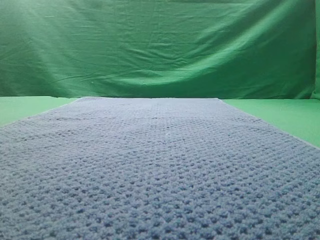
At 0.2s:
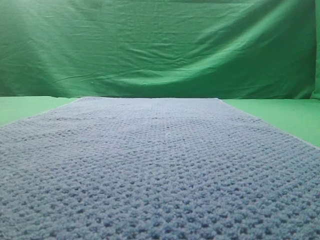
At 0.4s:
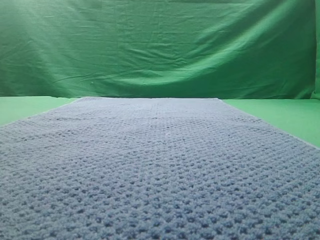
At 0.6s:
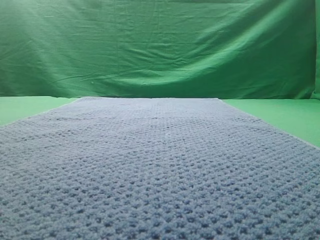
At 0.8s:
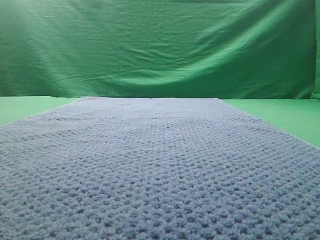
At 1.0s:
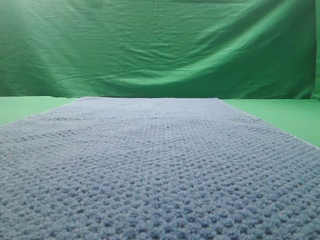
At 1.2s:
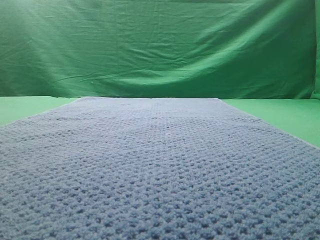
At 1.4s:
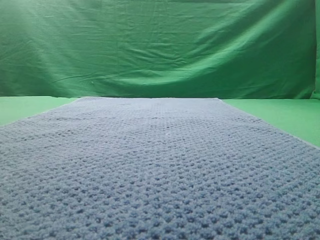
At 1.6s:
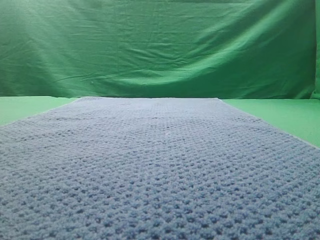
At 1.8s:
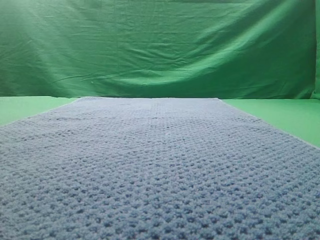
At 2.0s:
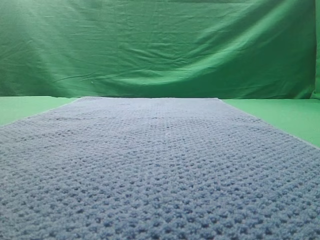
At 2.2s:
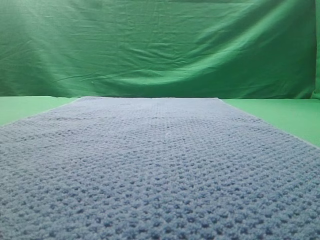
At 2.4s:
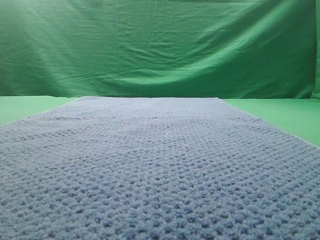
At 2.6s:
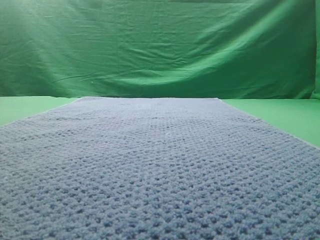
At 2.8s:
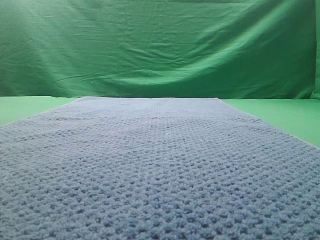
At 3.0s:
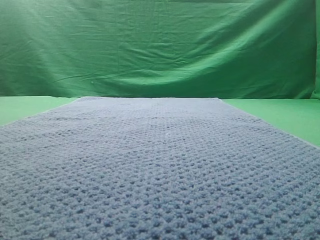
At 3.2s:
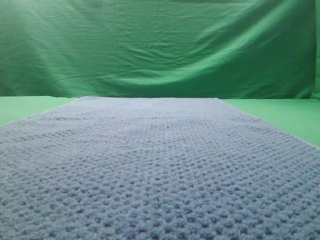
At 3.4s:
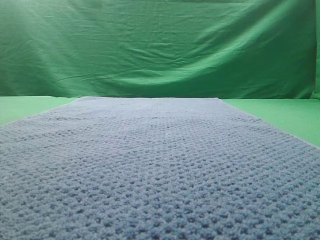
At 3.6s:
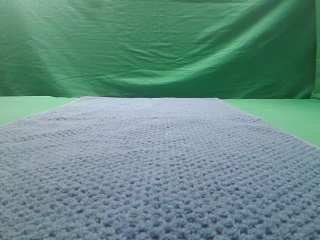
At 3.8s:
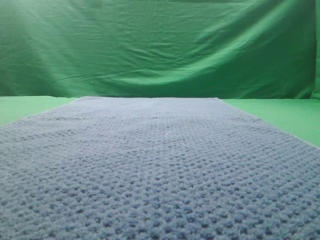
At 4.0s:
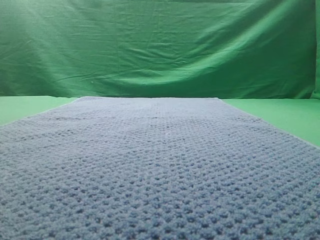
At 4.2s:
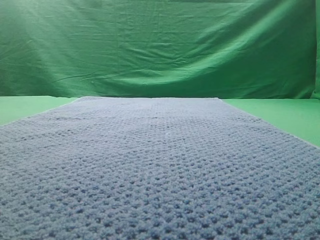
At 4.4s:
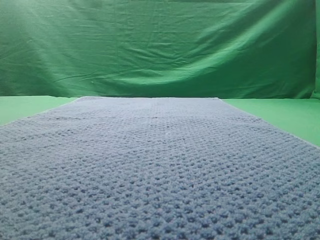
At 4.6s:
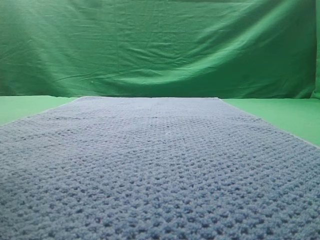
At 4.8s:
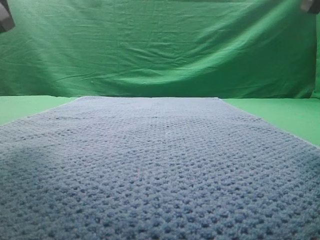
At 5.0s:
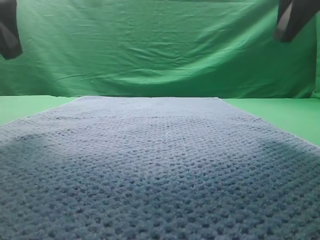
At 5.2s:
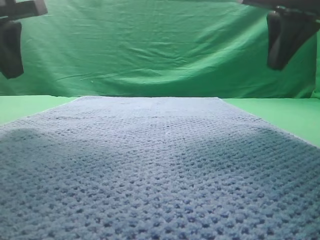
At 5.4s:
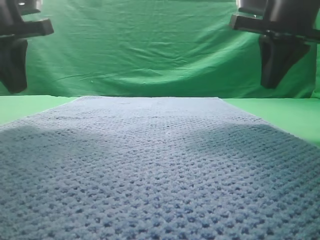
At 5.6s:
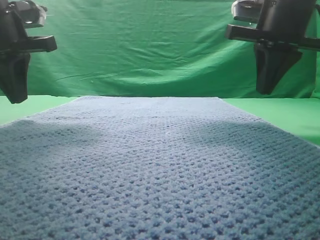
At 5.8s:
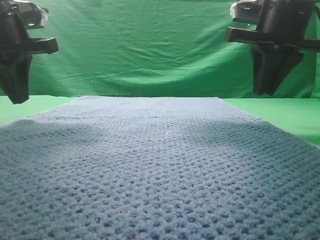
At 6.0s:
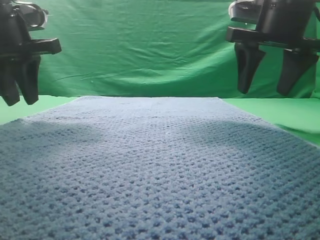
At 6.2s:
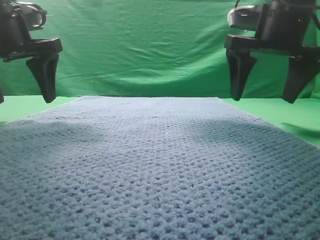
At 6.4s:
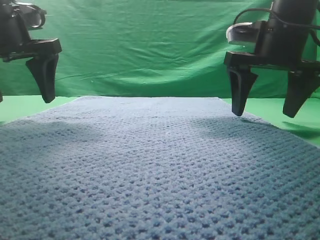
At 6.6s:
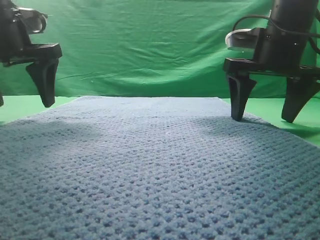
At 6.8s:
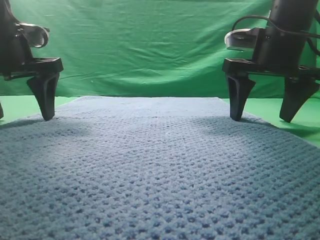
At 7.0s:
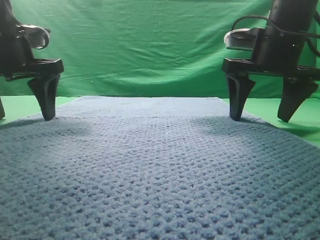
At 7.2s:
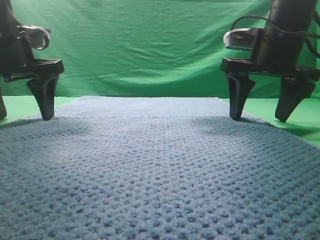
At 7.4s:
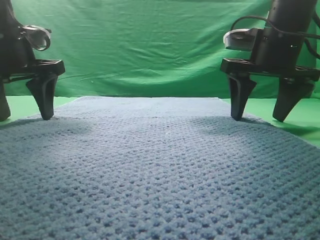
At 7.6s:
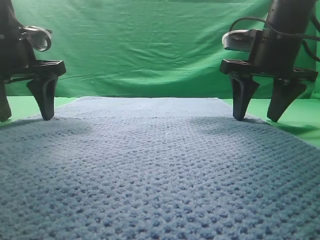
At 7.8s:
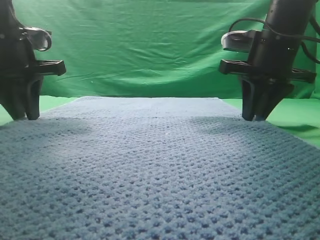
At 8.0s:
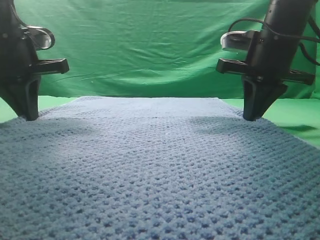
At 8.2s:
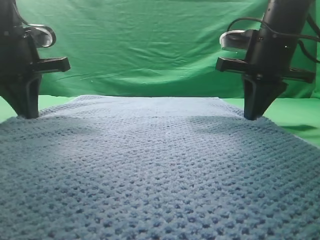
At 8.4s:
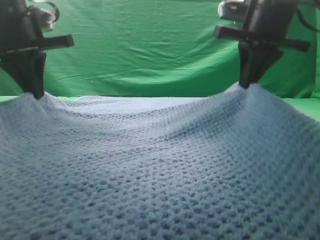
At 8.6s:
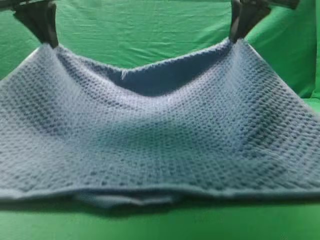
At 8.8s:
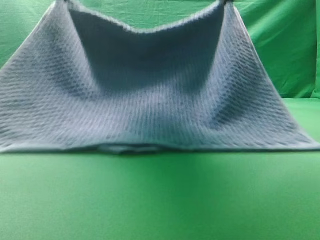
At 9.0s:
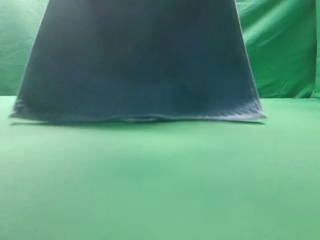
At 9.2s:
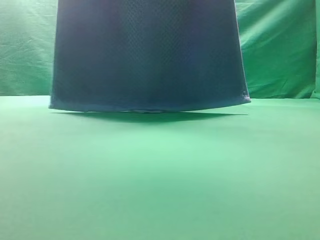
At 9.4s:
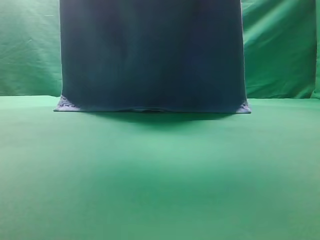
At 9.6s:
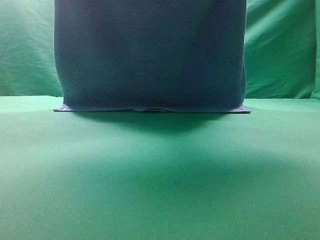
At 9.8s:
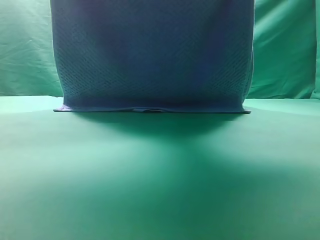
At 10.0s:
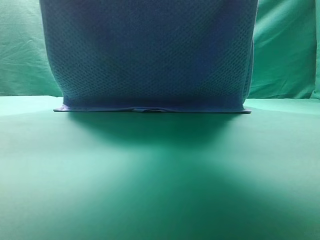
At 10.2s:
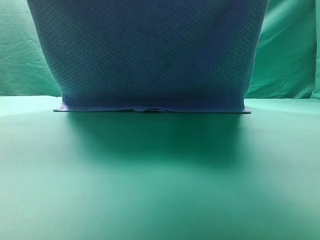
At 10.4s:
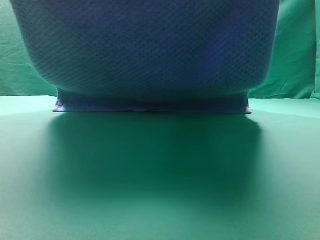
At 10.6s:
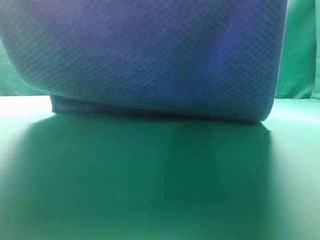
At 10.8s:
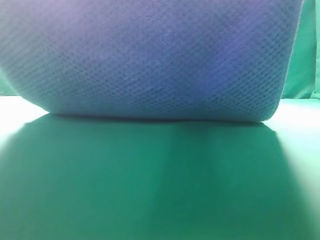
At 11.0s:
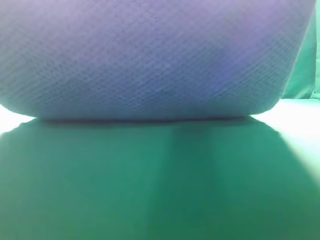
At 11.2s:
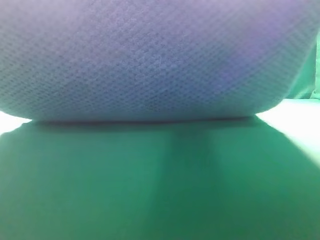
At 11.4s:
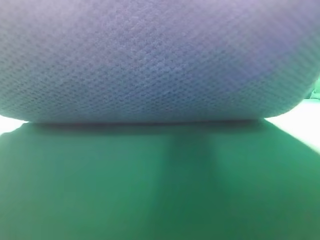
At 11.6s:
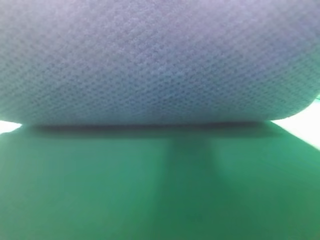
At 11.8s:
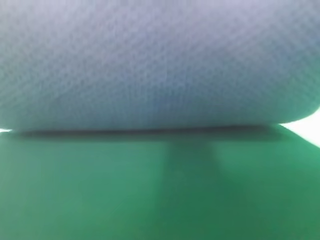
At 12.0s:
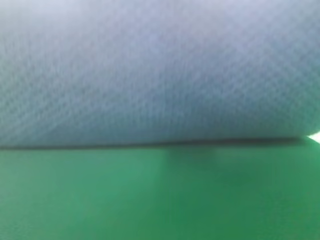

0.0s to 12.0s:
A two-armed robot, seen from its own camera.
Task of the whole recording: fold the towel on the table twice.
Step, 0.0s to 9.2s: pick up the towel with two arm.

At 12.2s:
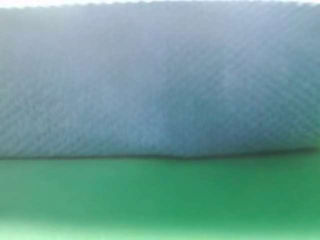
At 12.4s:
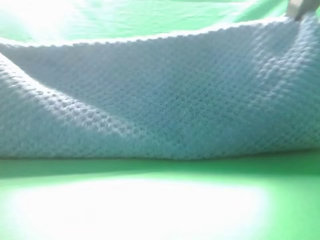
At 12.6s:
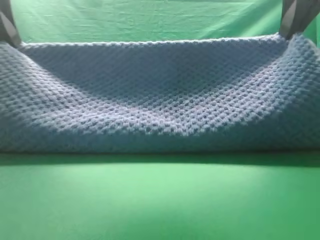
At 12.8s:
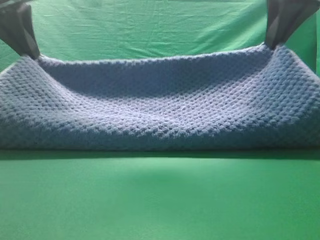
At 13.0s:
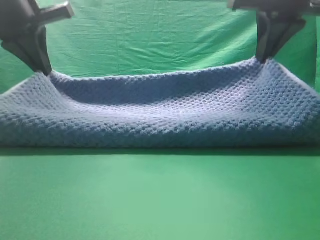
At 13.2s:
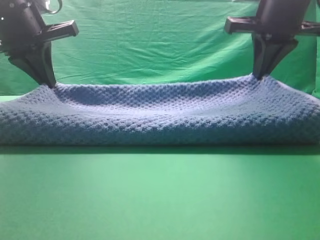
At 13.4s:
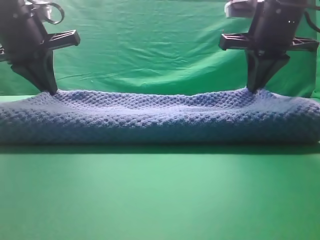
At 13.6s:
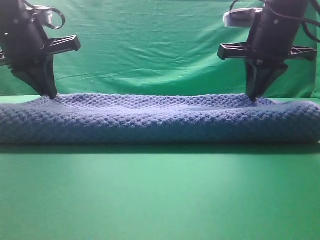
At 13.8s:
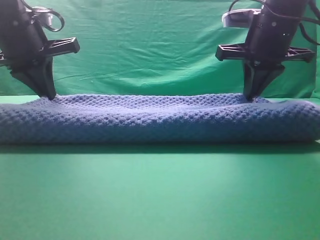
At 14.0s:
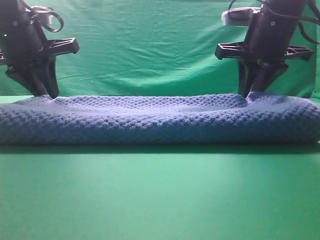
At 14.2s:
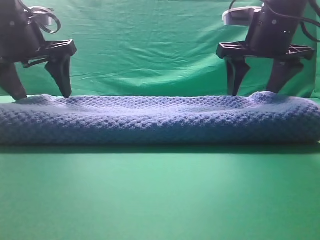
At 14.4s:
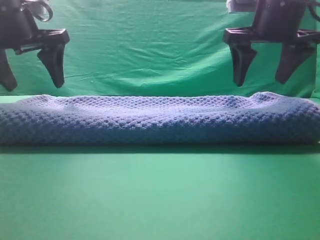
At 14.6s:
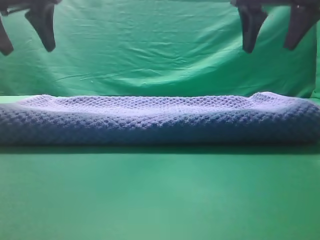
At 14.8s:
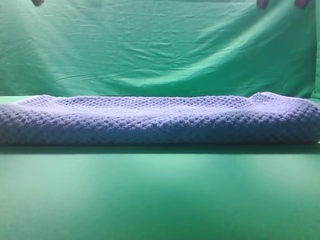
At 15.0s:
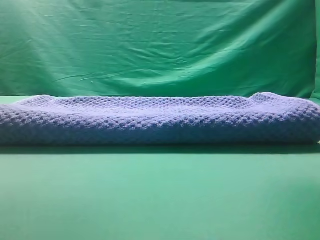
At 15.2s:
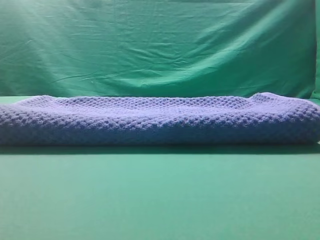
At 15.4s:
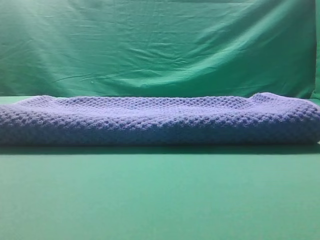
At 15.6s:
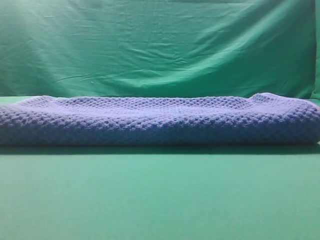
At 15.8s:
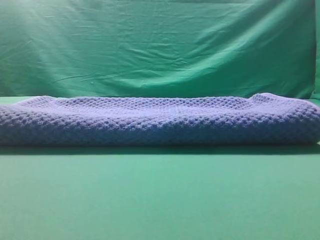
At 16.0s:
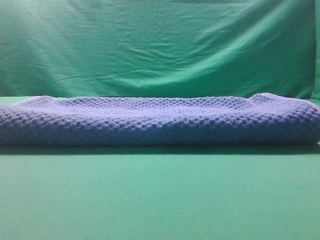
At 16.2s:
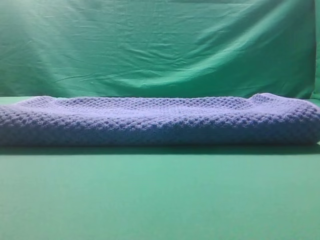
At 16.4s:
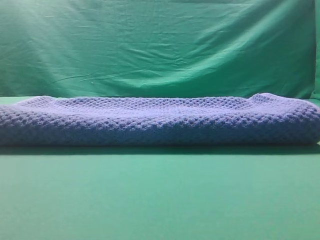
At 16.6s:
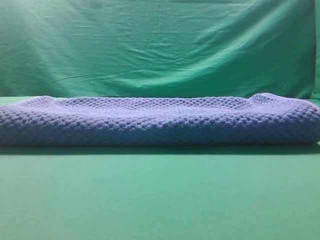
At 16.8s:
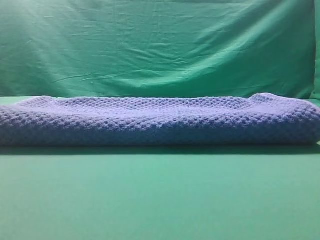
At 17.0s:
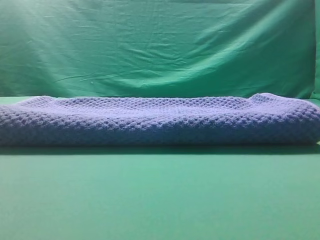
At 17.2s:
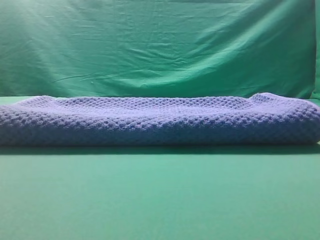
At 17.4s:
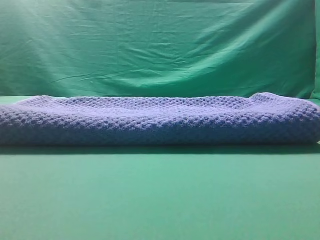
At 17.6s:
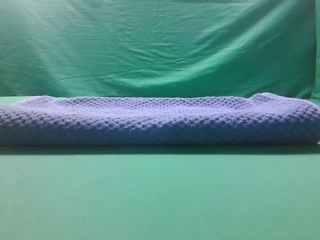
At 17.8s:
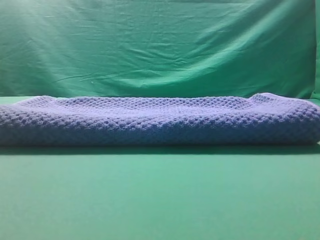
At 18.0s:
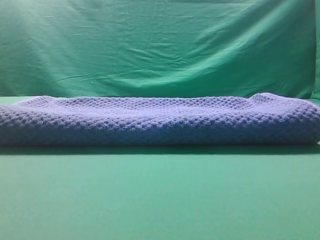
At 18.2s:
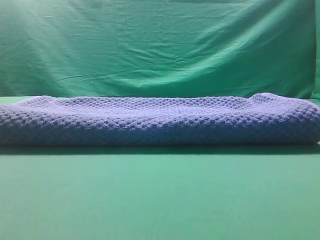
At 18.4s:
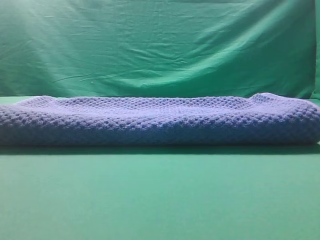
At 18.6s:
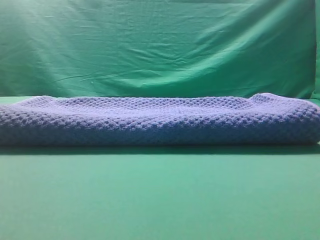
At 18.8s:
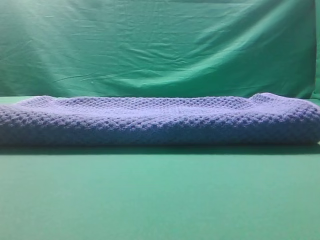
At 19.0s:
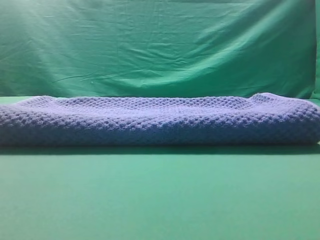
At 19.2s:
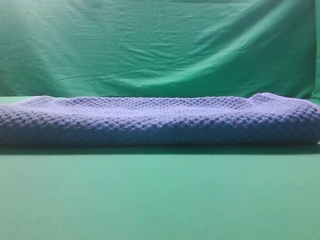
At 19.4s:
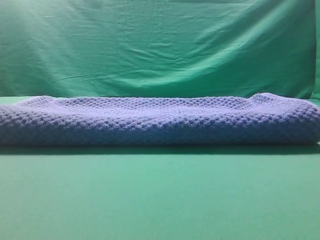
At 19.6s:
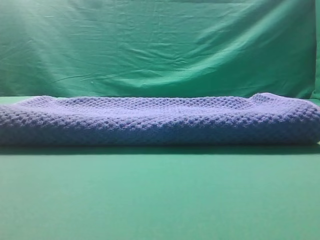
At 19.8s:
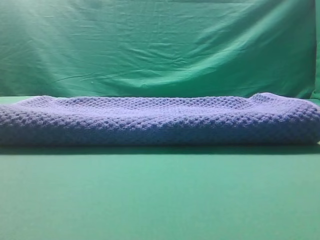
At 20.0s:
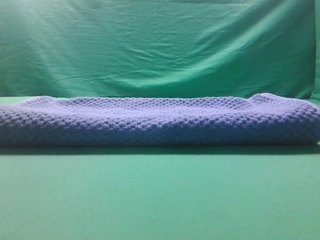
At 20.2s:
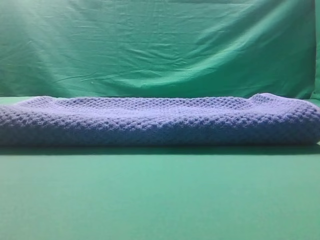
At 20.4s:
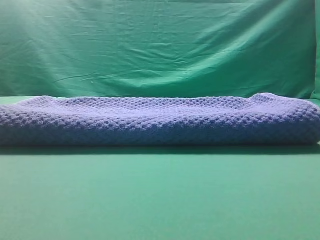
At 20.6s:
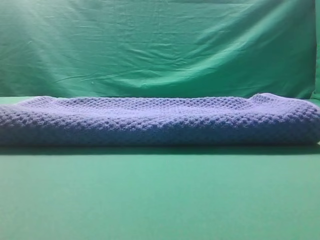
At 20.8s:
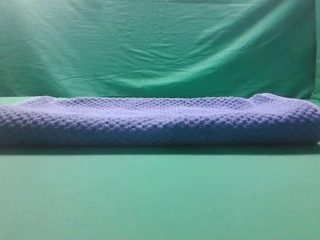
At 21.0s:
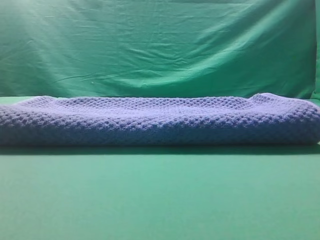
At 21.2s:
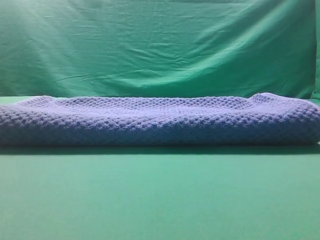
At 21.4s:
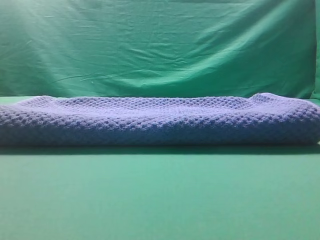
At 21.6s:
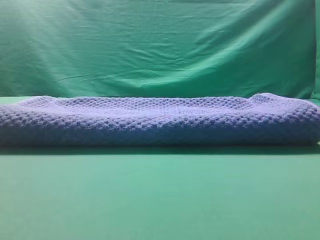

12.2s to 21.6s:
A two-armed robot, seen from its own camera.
Task of the whole recording: fold the towel on the table twice.
Step, 12.2s to 14.6s: Fold the towel twice on the table.

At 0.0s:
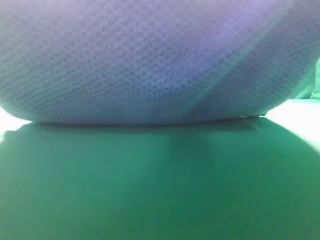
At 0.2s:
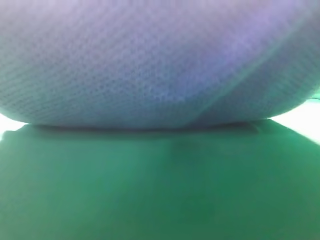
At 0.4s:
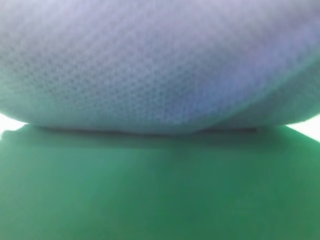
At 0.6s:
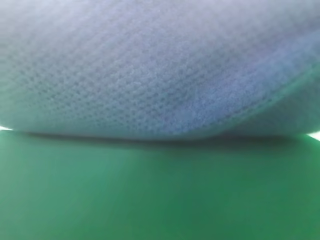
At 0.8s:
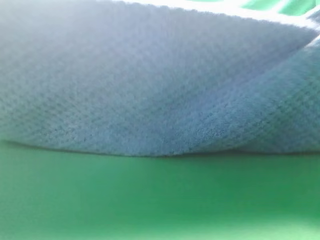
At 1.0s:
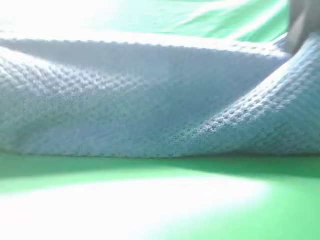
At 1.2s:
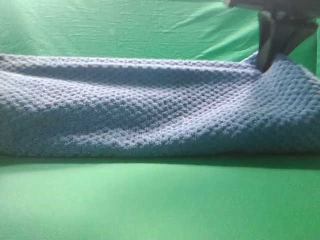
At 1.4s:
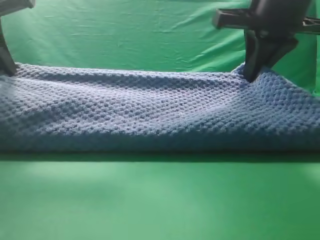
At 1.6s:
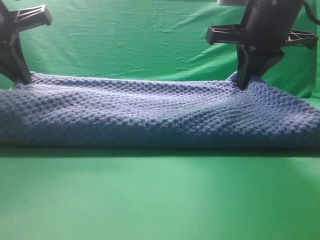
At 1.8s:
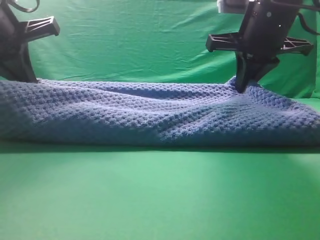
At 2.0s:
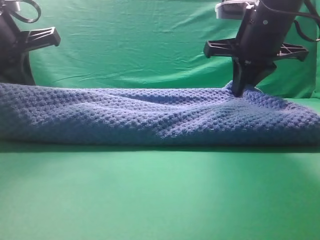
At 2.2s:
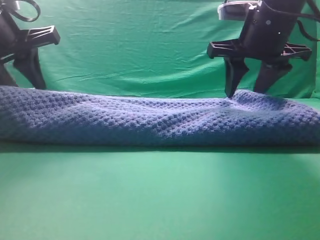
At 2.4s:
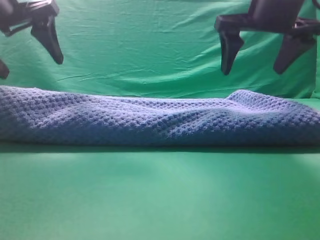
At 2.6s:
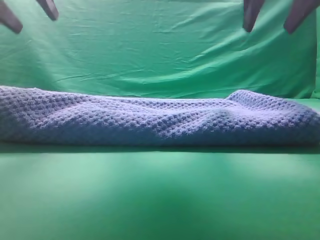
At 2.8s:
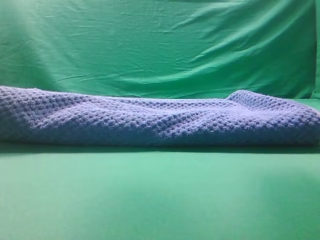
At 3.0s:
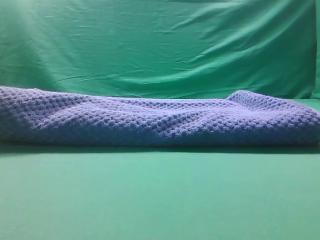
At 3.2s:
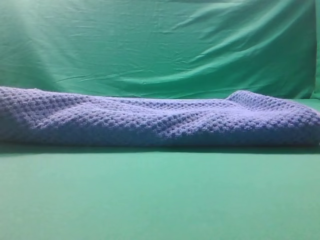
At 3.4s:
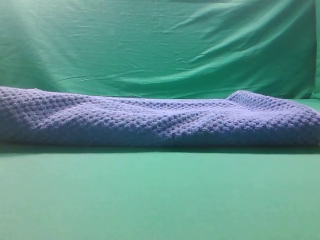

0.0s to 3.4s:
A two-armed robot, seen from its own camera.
Task of the whole recording: fold the towel on the table twice.
Step, 0.0s to 2.4s: Fold the towel twice on the table.
